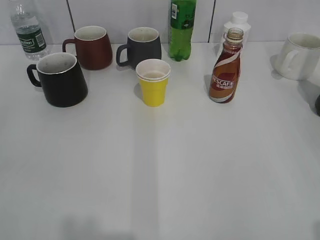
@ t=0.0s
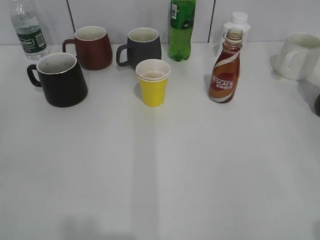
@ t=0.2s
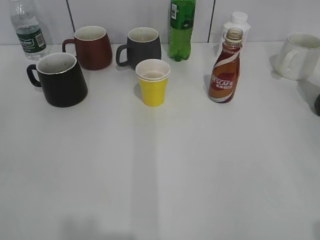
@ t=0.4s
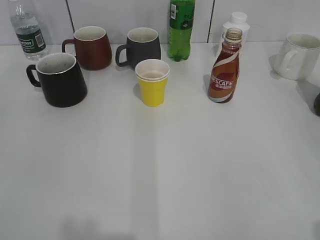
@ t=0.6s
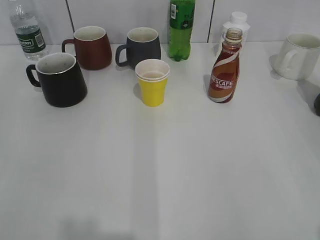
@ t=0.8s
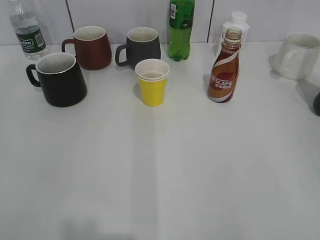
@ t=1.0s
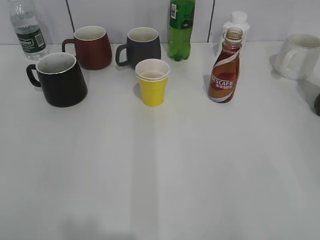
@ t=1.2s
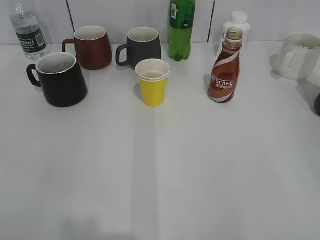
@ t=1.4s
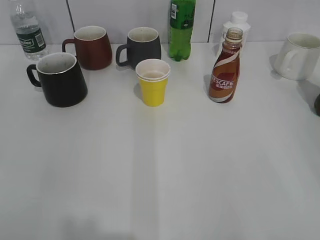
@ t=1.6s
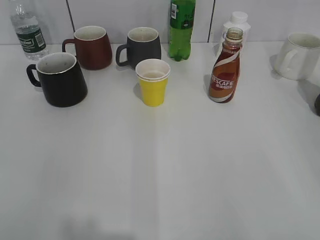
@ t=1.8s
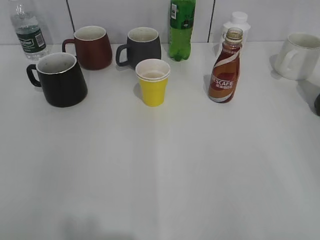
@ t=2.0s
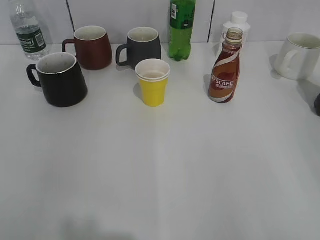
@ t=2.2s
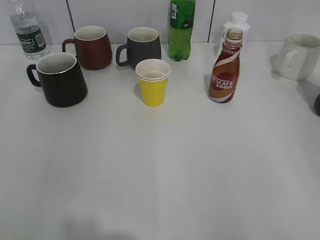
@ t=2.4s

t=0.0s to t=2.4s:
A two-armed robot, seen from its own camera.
t=1.2s to t=2.4s: Both grippers stay put.
